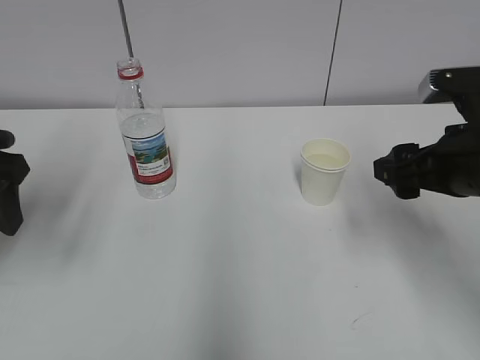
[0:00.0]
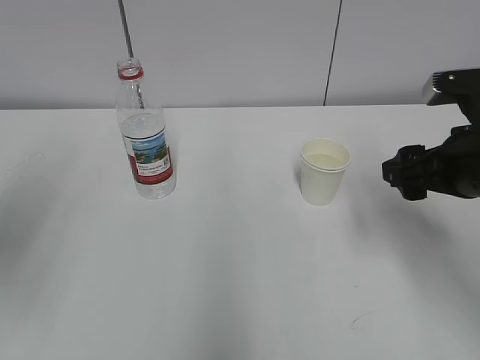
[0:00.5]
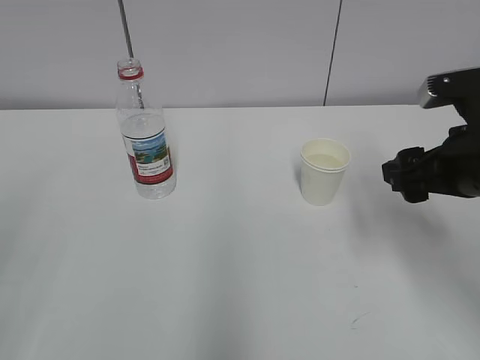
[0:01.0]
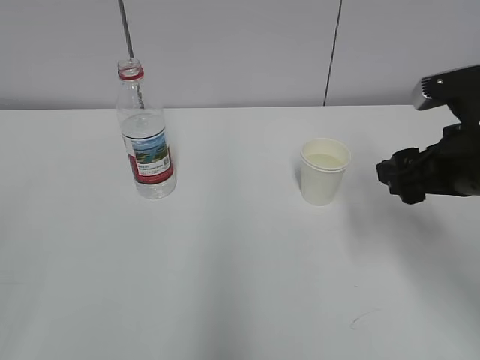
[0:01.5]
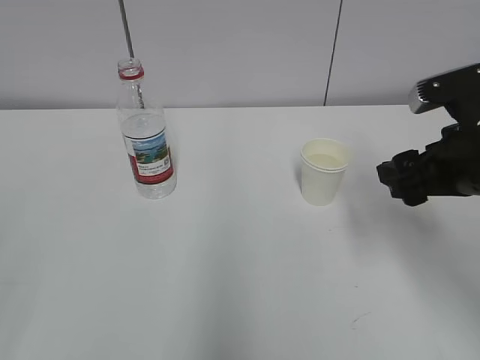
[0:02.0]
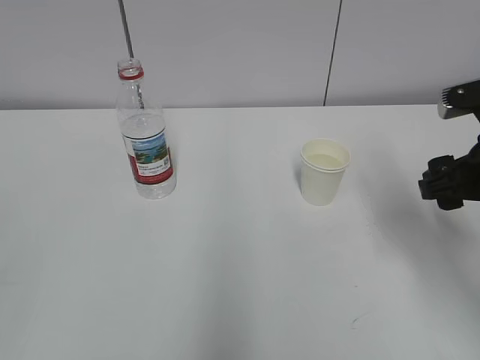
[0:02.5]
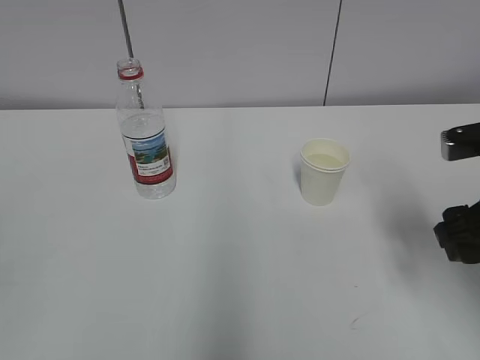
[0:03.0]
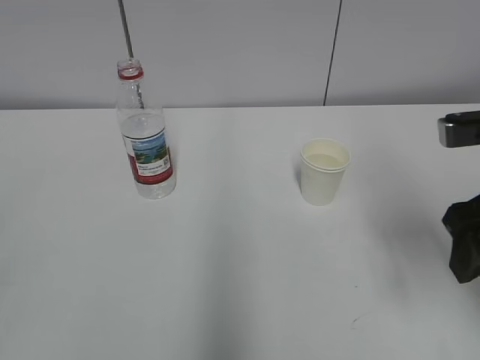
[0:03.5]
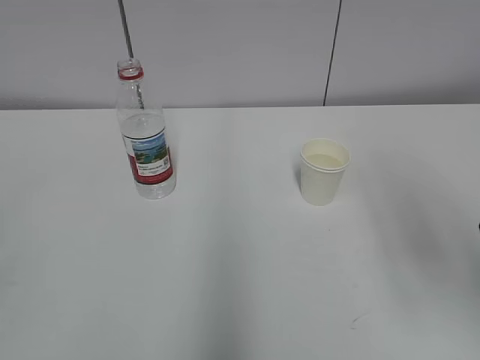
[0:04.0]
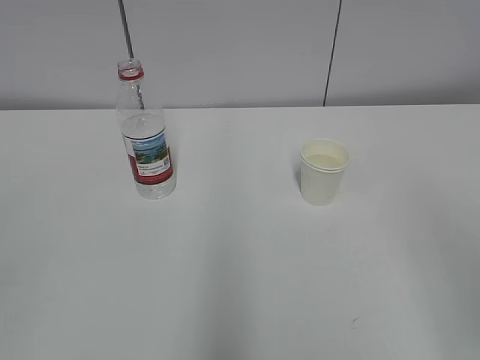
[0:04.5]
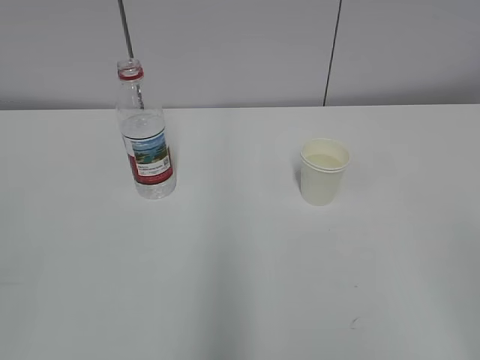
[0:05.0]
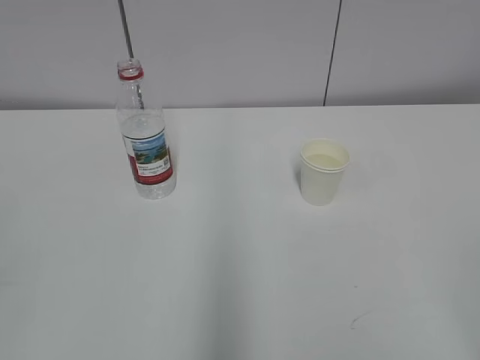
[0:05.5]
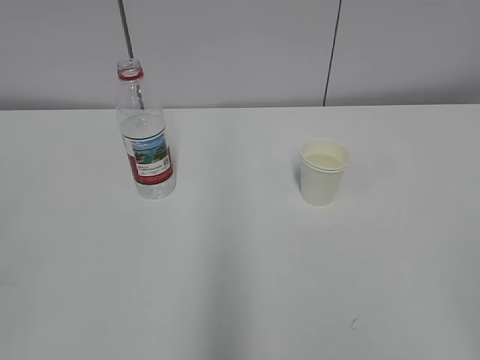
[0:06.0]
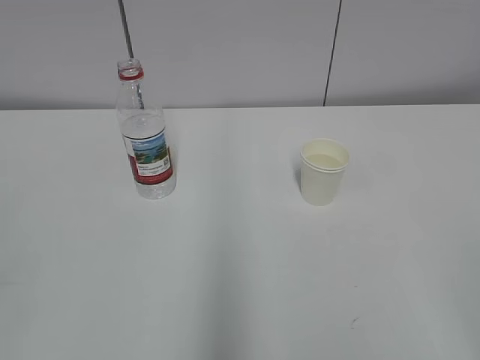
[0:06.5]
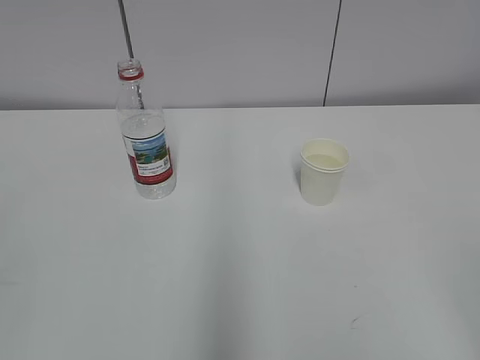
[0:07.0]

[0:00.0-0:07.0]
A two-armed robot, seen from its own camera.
0:00.0 to 0:02.0: The left gripper goes roughly 25 cm backward.
0:02.0 to 0:03.5: The right gripper ends up roughly 5 cm from where it was.
0:03.5 to 0:05.0: The right gripper shifts some 25 cm backward.

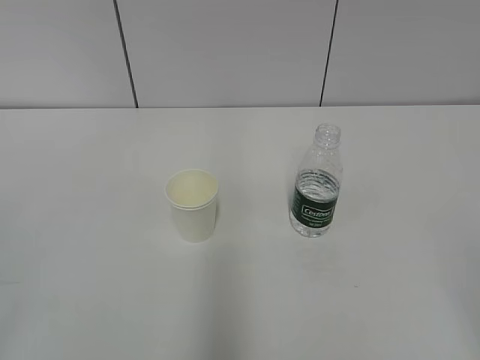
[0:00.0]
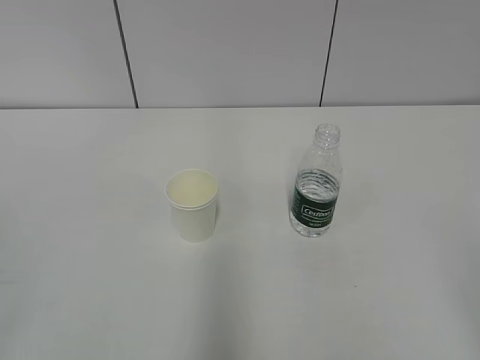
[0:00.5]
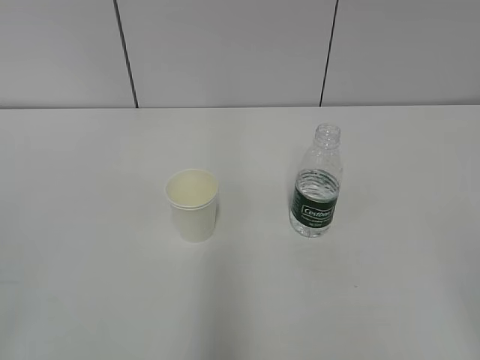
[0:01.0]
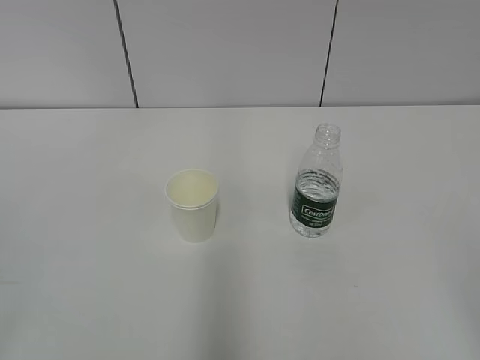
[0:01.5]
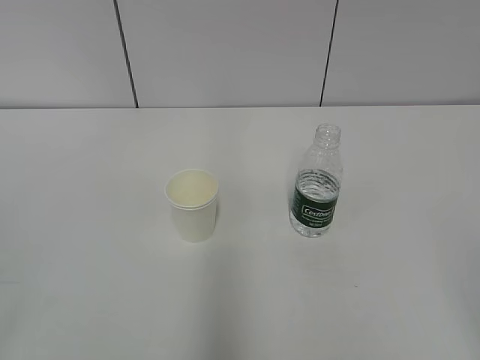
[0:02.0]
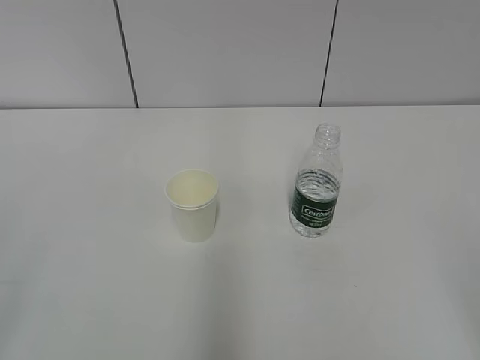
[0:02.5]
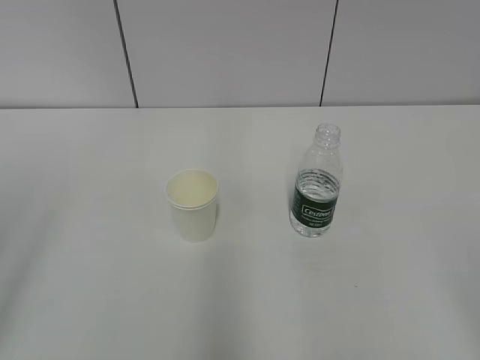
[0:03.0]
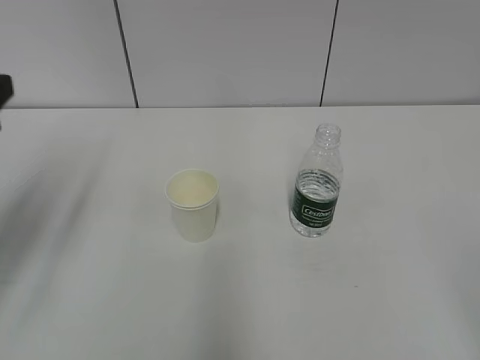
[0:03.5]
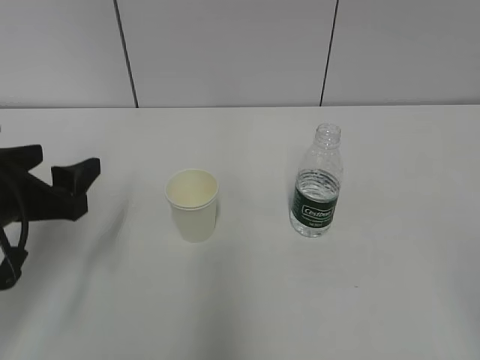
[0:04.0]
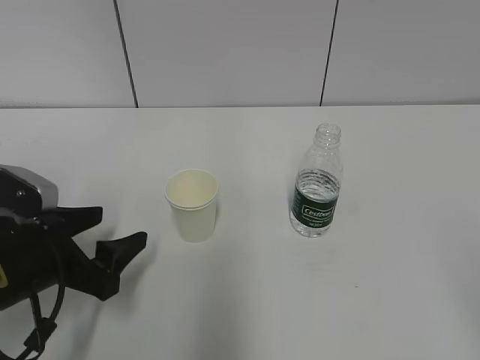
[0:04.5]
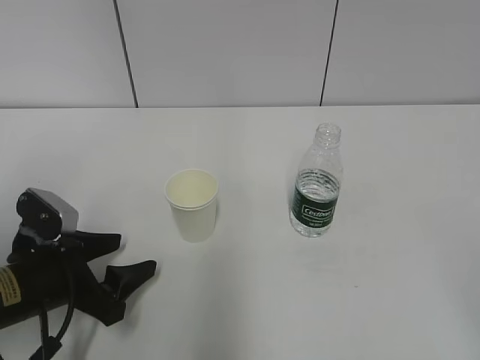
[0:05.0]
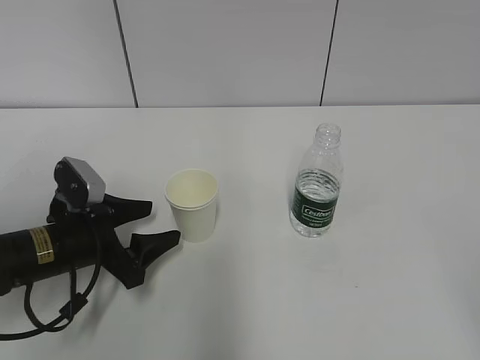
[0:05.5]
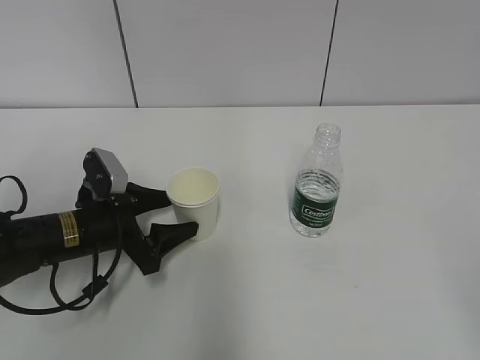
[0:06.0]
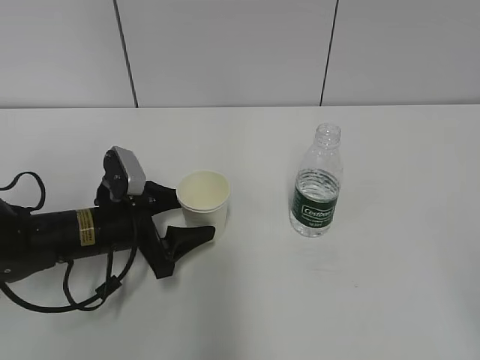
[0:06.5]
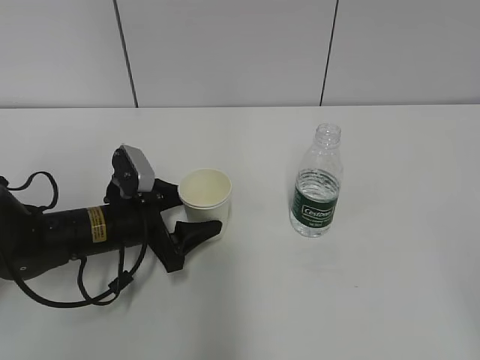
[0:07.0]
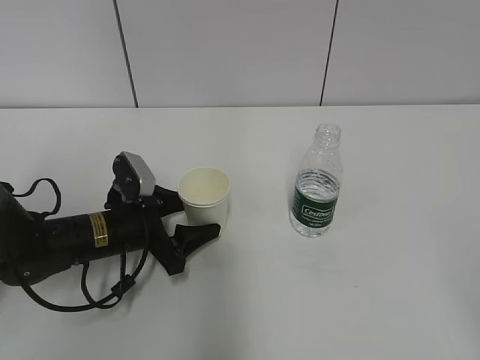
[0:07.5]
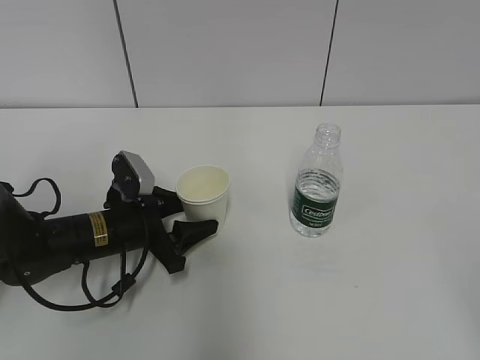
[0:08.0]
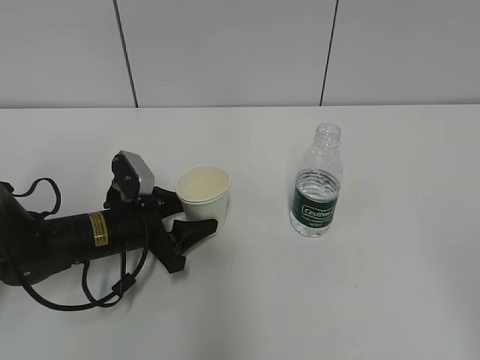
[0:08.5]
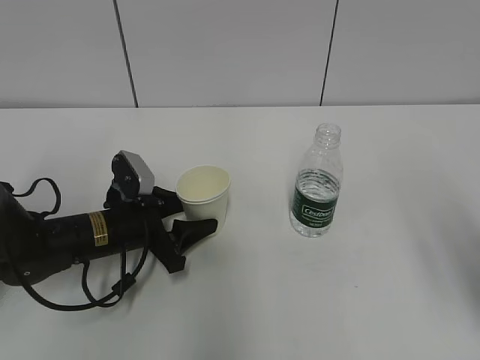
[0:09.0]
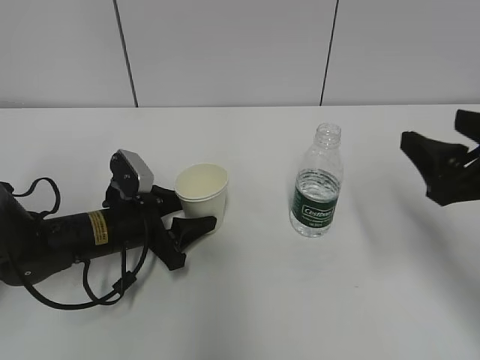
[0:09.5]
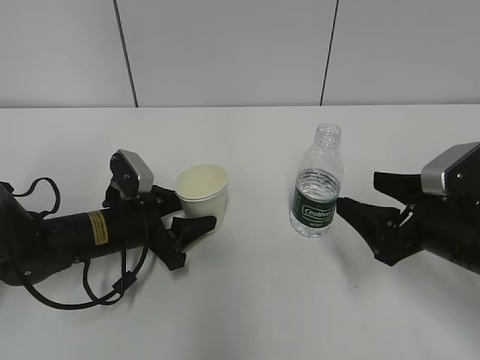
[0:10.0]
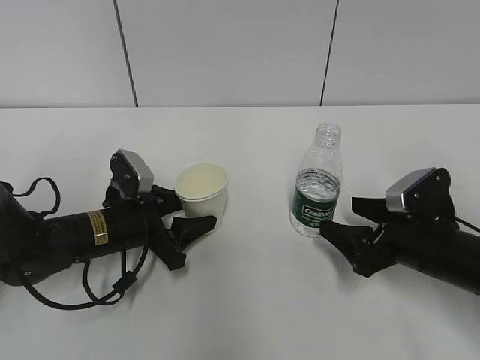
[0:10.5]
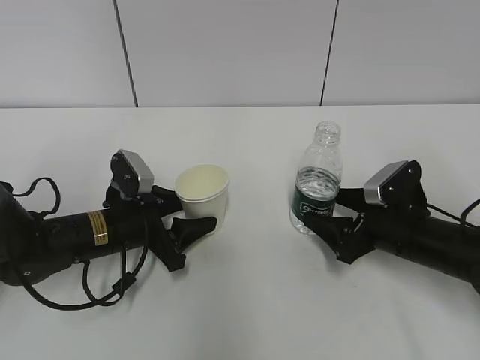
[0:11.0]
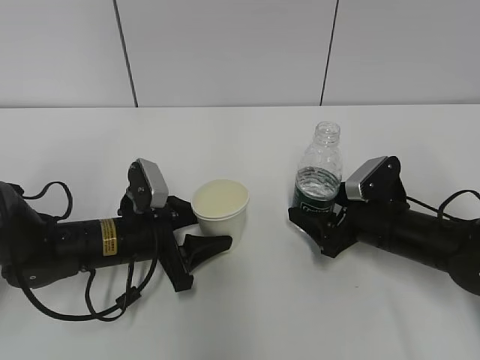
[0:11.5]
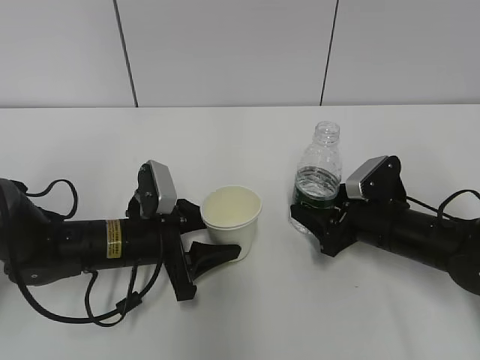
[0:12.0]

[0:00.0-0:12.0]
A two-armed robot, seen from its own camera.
Step, 0:00.0 to 0:09.5: Grab the paper cup with the left hand.
Step, 0:10.0 to 0:10.5: Grab the water bottle with the right hand.
0:02.0 to 0:04.0: The left gripper goes some 25 cm forward and downward, and opens its fingers.
0:04.0 to 0:06.0: The left gripper is displaced downward, forward and to the right by approximately 15 cm.
0:06.0 to 0:08.0: The grippers move only a little.
0:08.0 to 0:10.0: The right gripper goes approximately 30 cm forward and downward.
0:10.0 to 0:12.0: The right gripper travels forward and downward by approximately 10 cm, and closes up.

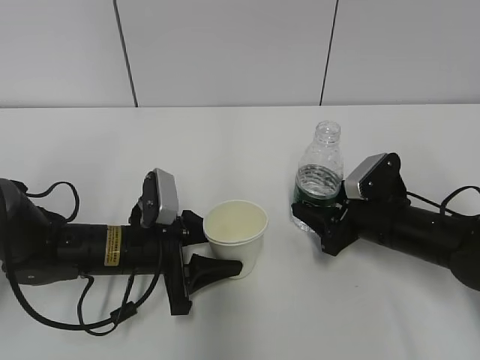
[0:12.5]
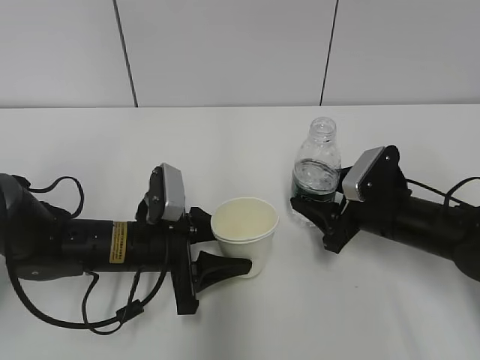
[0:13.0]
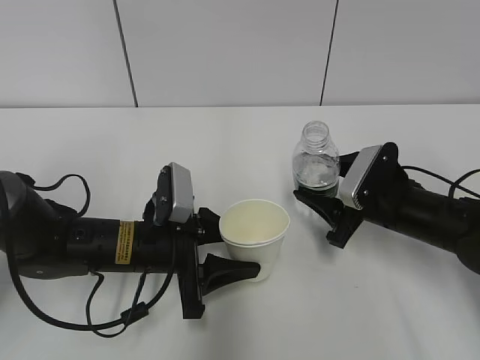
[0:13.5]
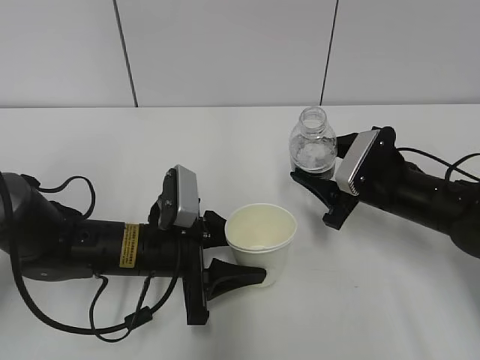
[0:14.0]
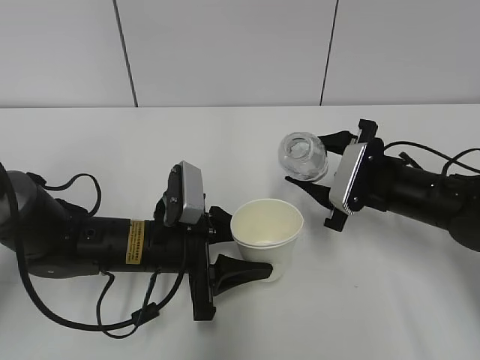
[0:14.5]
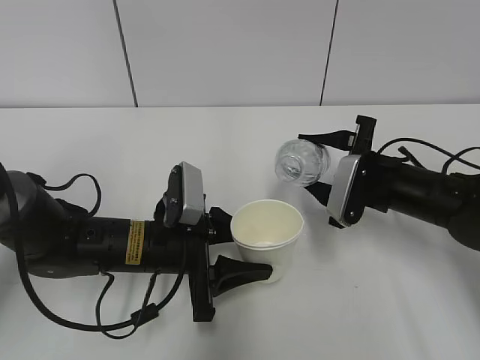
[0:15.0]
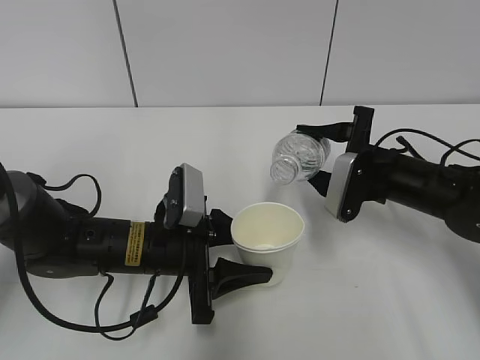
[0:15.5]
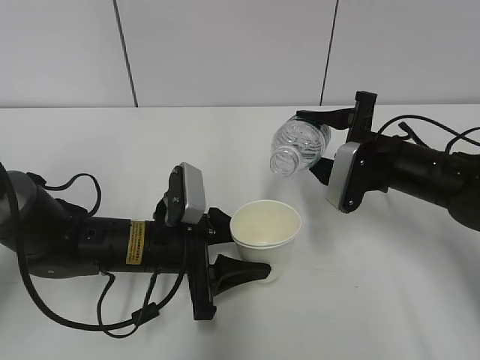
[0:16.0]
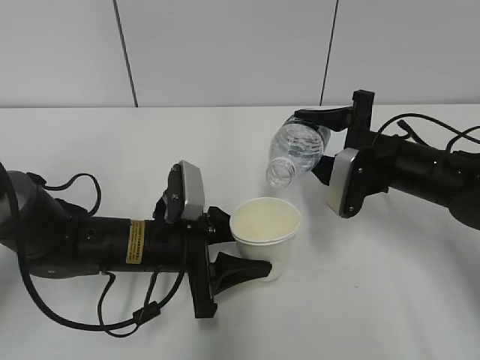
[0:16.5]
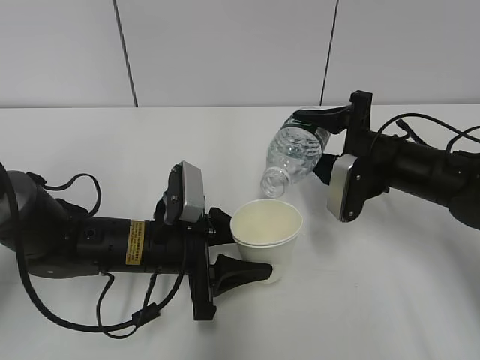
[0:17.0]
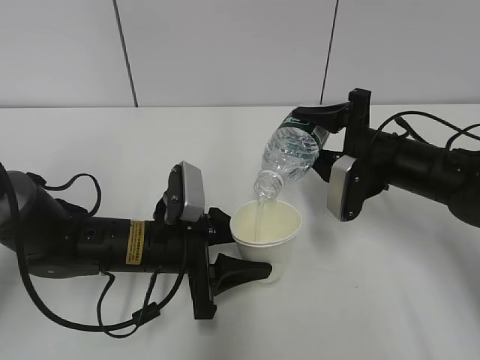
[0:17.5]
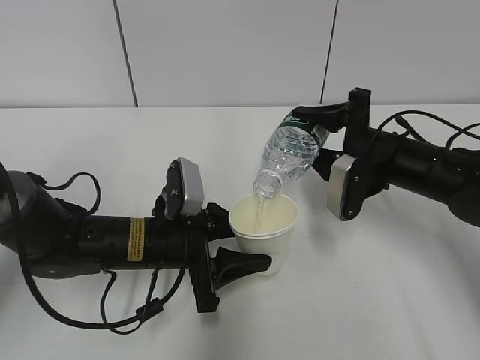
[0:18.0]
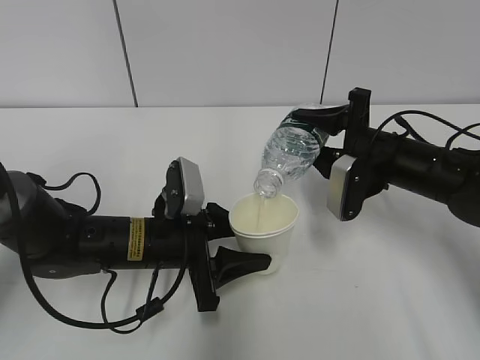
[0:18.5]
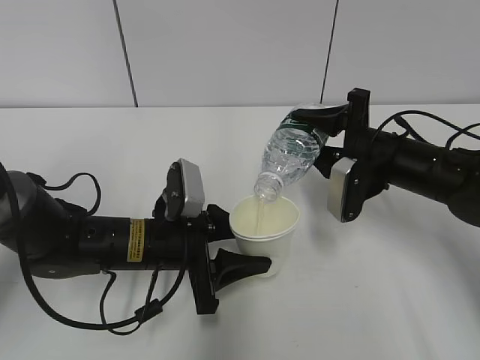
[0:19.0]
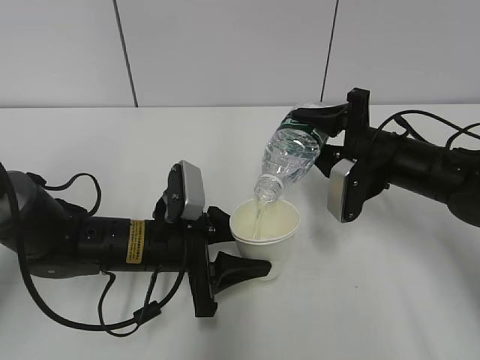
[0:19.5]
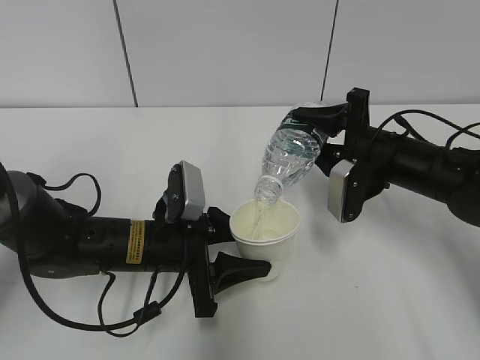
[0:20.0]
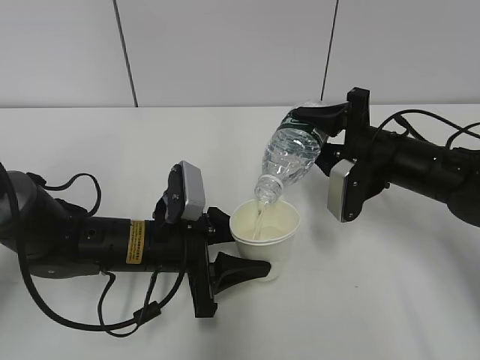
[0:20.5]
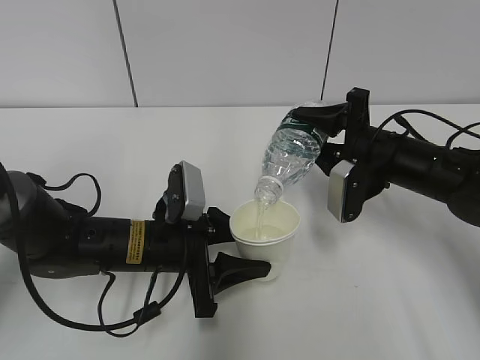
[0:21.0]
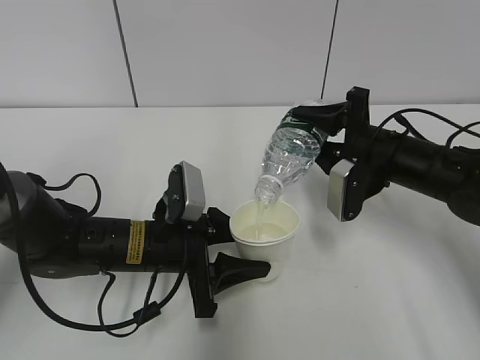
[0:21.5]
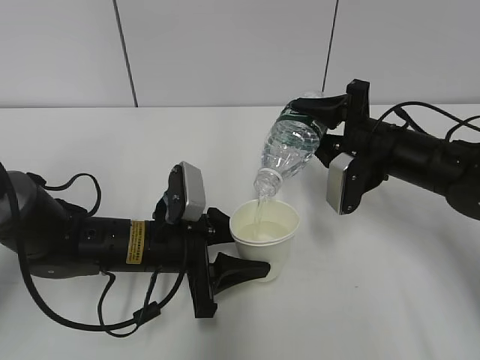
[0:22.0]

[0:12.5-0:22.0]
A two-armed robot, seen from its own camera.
Step, 0:14.5 to 0:19.0: Fill water with the left hand.
Step, 0:14.5 to 0:19.0: Pour water with the right hand.
0:12.5 to 0:14.5: The right gripper shifts by approximately 5 cm.
0:16.5 to 0:20.0: The grippers stay close to where they were, moving slightly.
0:20.0 to 0:22.0: Both grippers stay about where they are.
